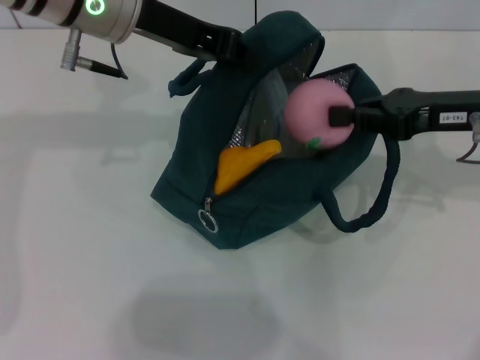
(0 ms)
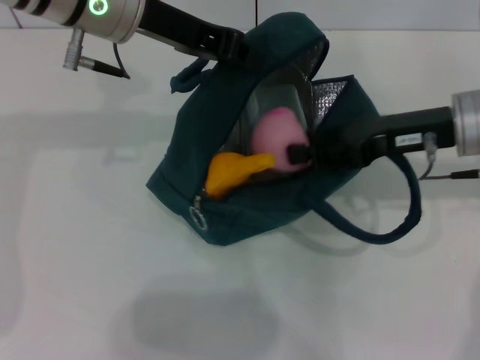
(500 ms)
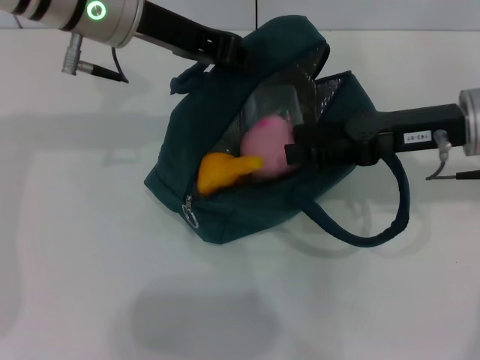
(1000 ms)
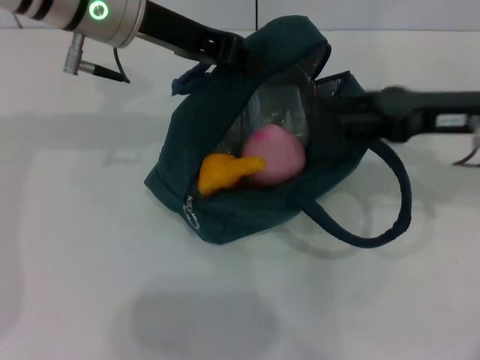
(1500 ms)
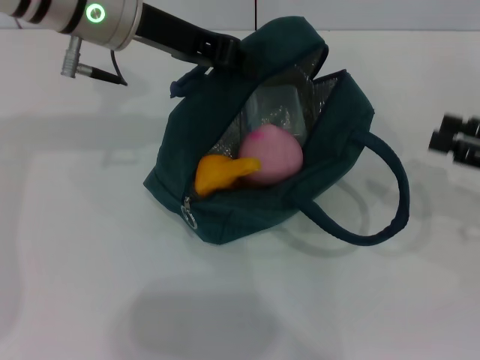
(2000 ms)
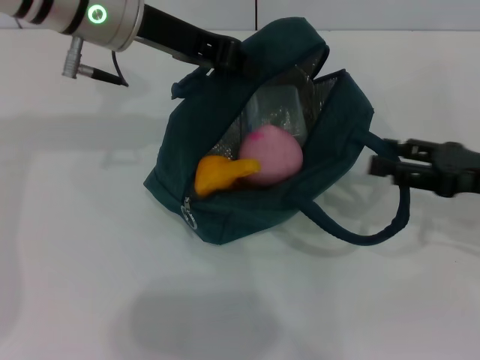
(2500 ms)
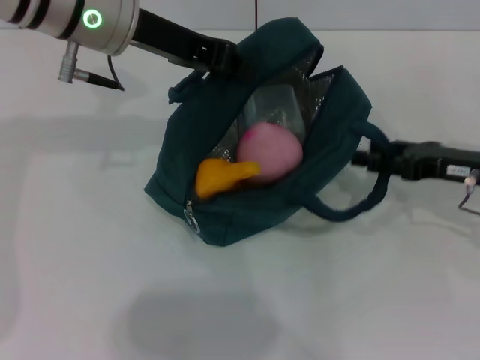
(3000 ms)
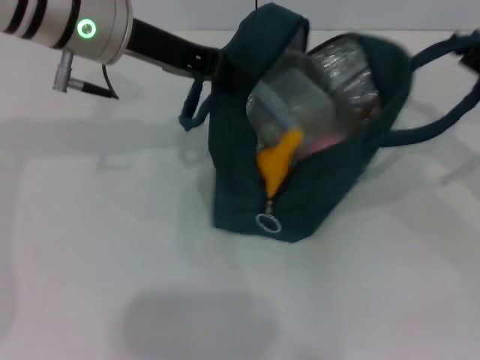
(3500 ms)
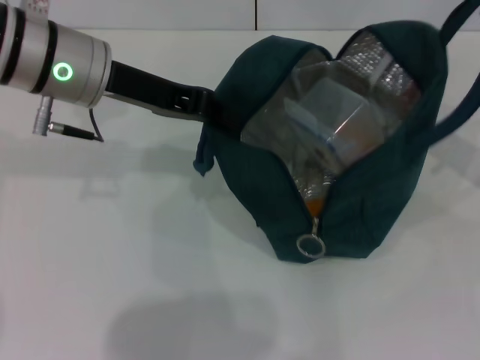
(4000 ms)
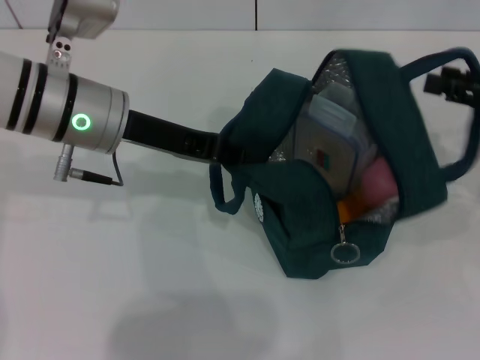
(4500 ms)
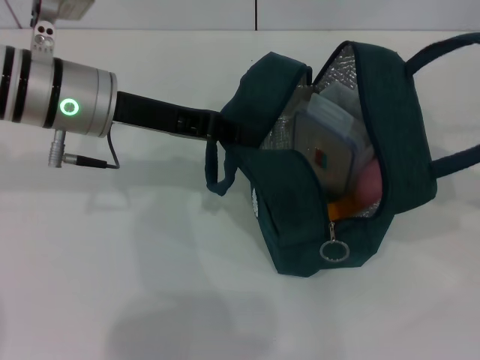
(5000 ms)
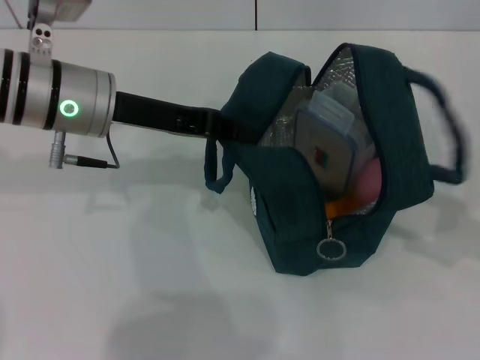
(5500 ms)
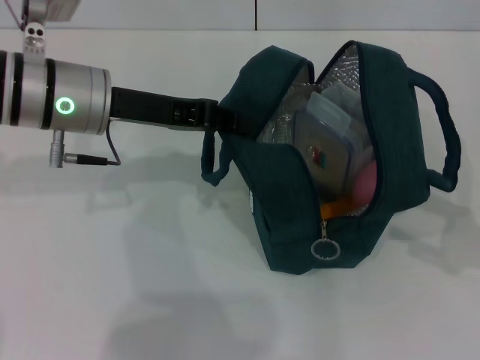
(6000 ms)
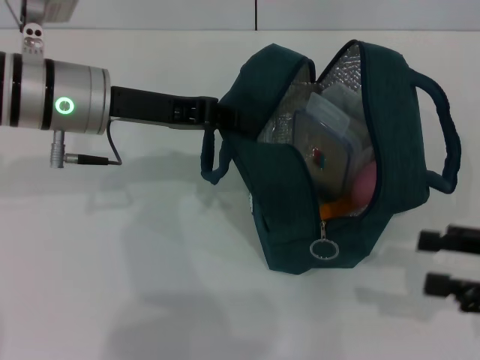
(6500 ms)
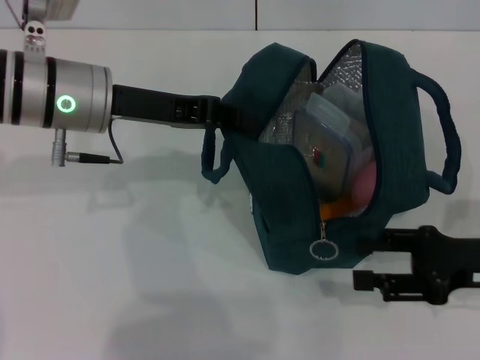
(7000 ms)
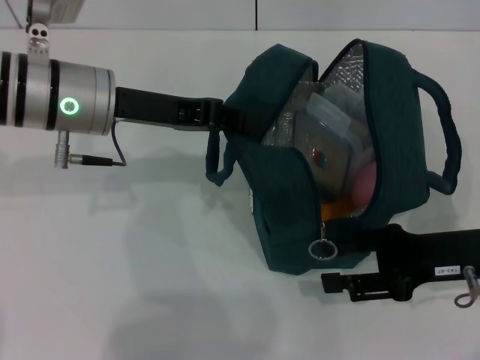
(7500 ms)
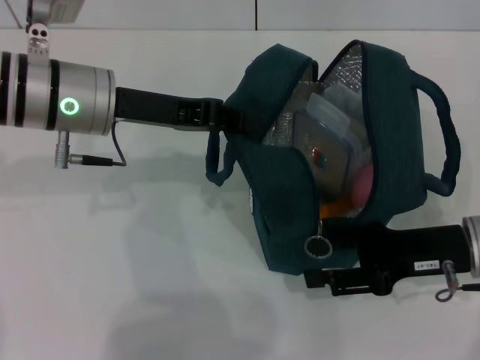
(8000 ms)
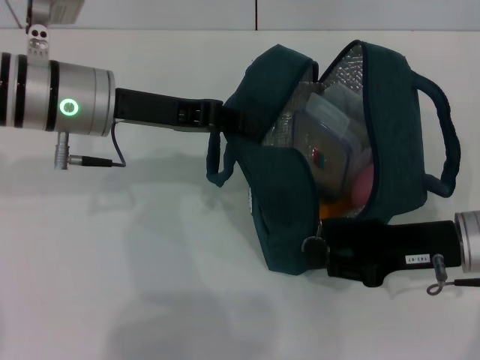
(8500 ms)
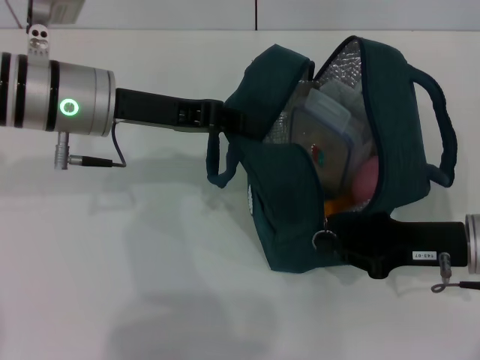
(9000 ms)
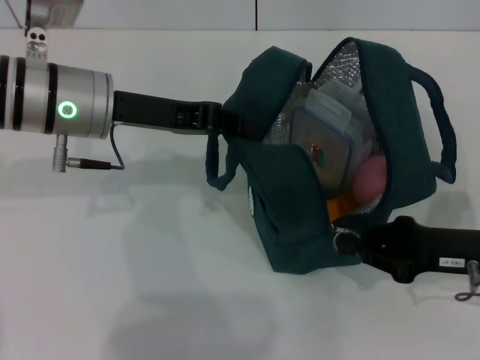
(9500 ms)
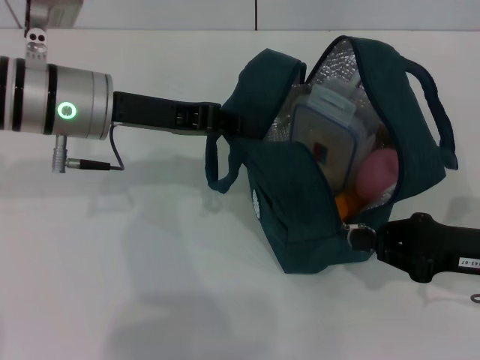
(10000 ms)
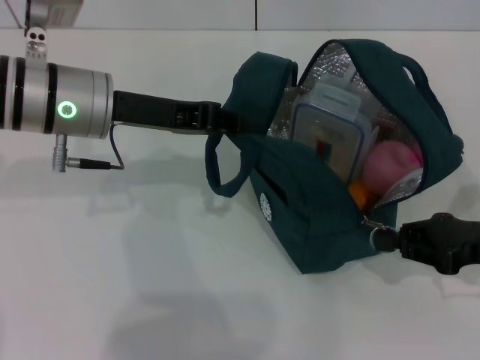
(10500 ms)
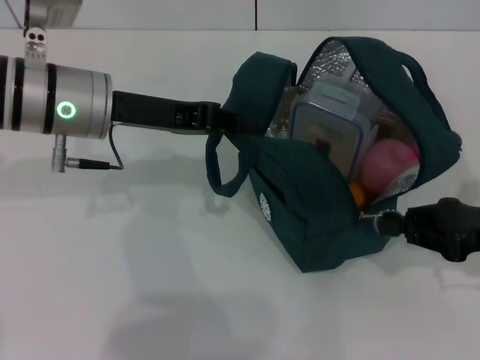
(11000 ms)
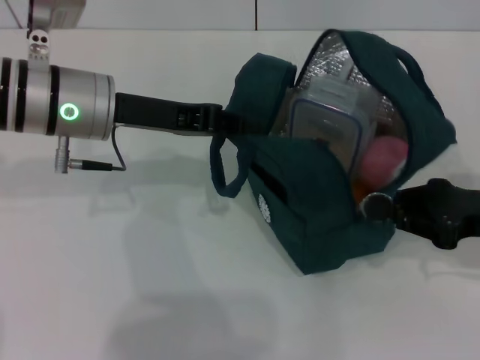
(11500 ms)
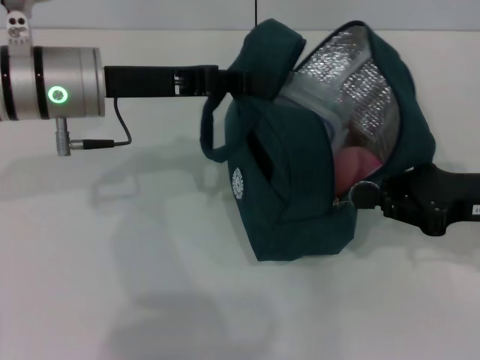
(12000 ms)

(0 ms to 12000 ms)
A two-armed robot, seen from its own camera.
Step, 2000 ms - 5000 ms: Hold the lunch bag with your right hand.
0 ms - 2000 ms: The right gripper travels to the right and backward by some 10 cm, and opens its fingers.
2000 ms - 4000 ms: The left gripper ends up some 5 cm from where it was; the right gripper travels upward by about 5 cm.
4000 ms - 6000 ms: The right gripper shifts roughly 10 cm backward.
6000 ms - 8000 ms: The right gripper is displaced to the left, forward and downward by some 15 cm.
8000 ms - 10000 ms: The right gripper closes.
10000 ms - 12000 ms: The right gripper moves upward, approximately 5 cm.

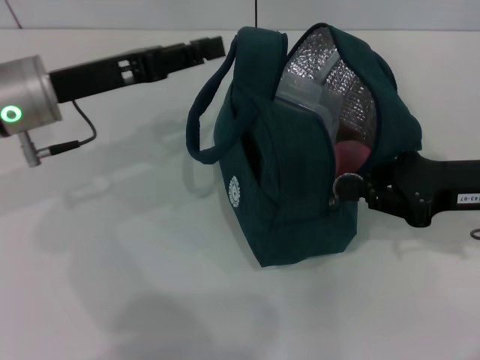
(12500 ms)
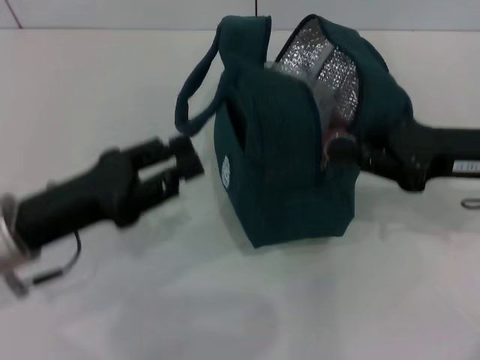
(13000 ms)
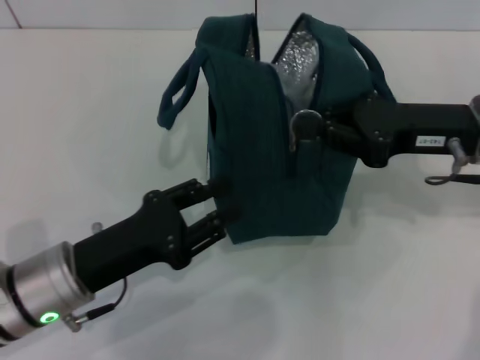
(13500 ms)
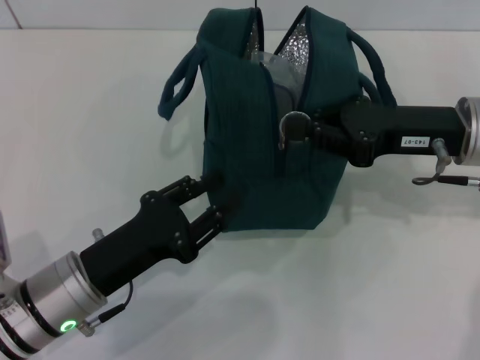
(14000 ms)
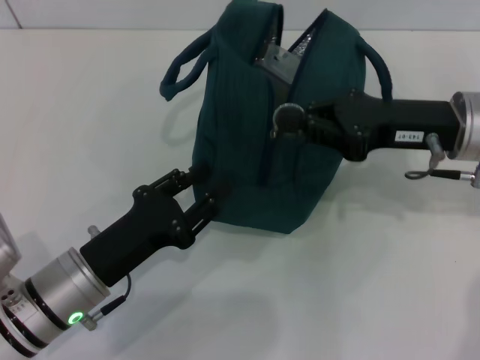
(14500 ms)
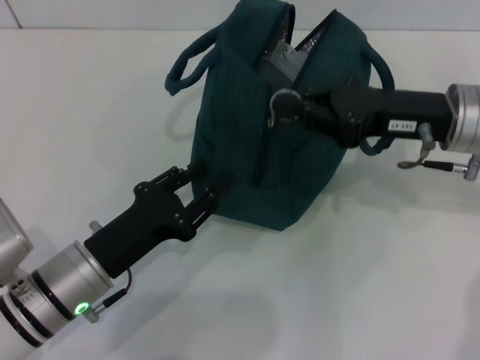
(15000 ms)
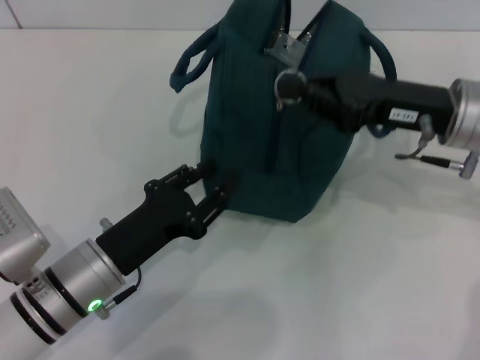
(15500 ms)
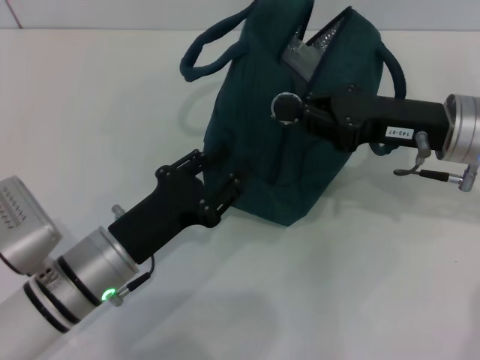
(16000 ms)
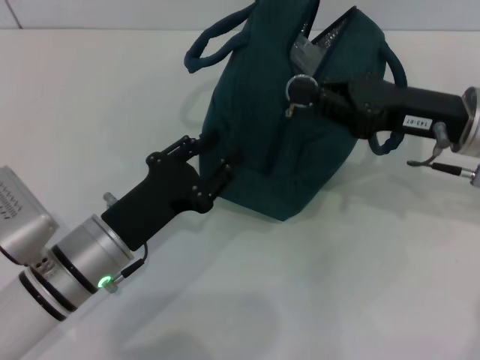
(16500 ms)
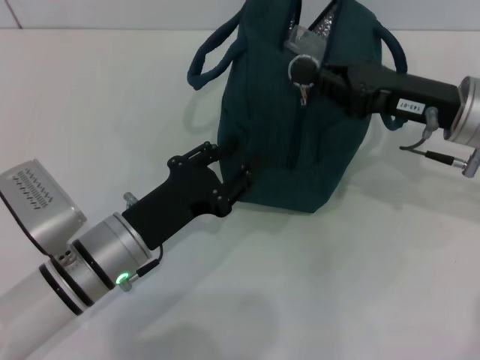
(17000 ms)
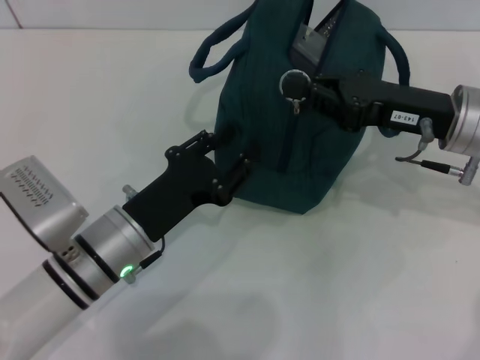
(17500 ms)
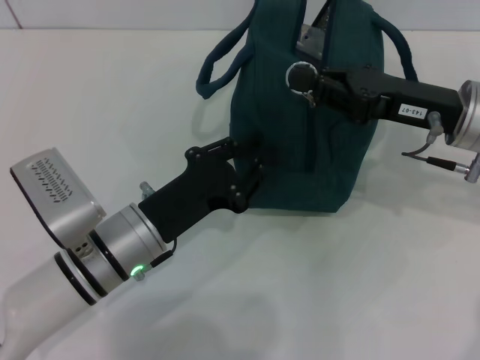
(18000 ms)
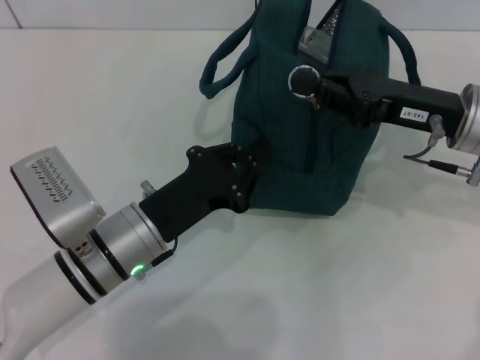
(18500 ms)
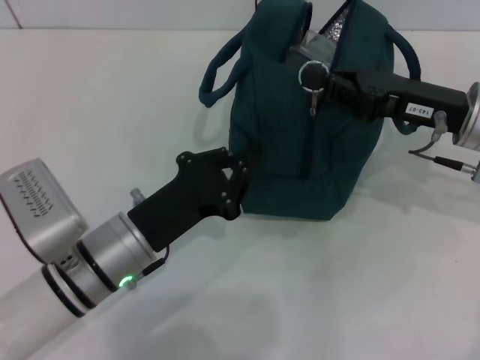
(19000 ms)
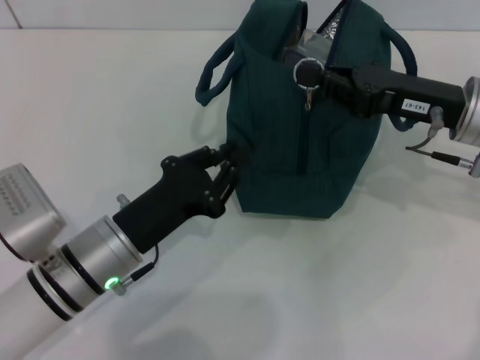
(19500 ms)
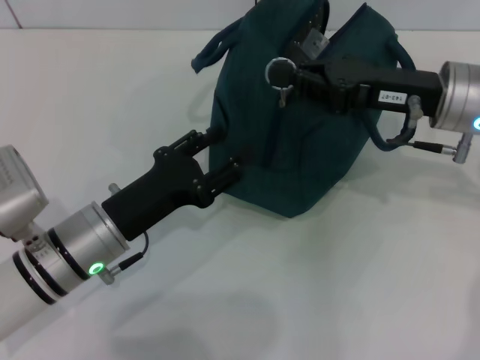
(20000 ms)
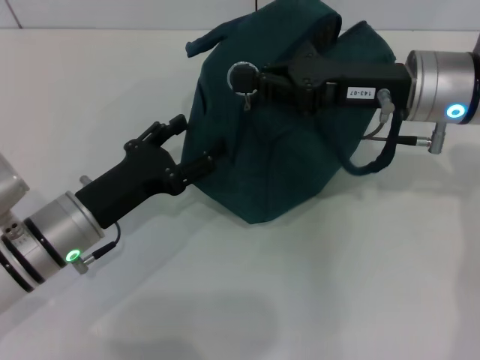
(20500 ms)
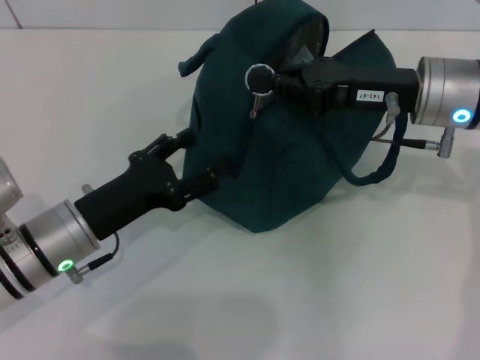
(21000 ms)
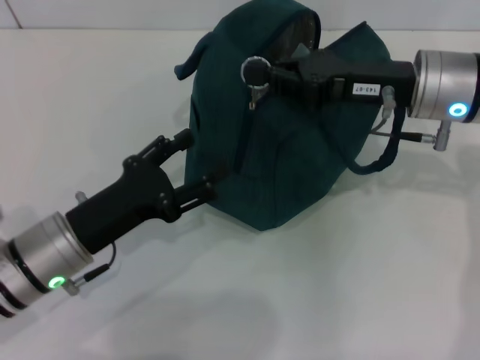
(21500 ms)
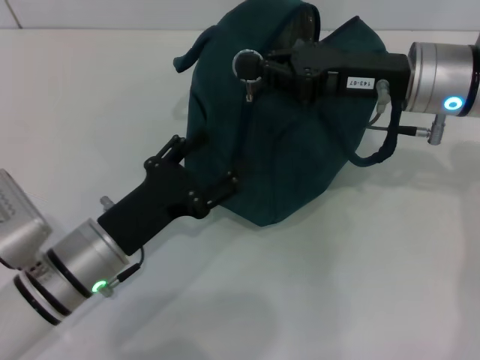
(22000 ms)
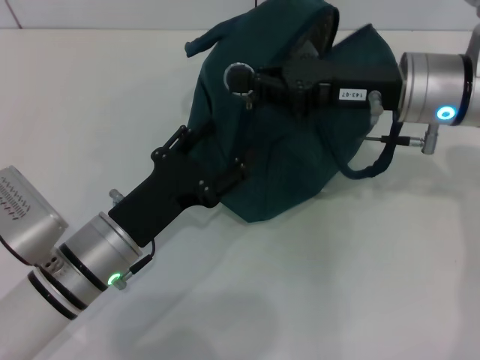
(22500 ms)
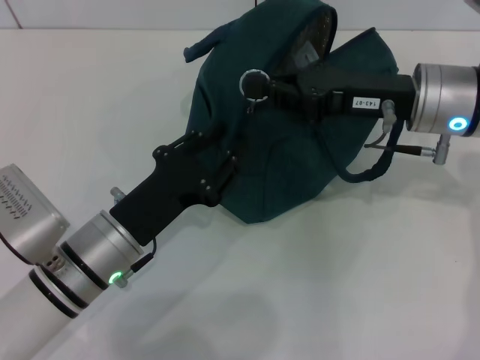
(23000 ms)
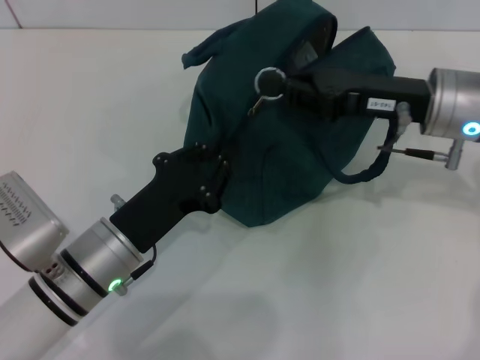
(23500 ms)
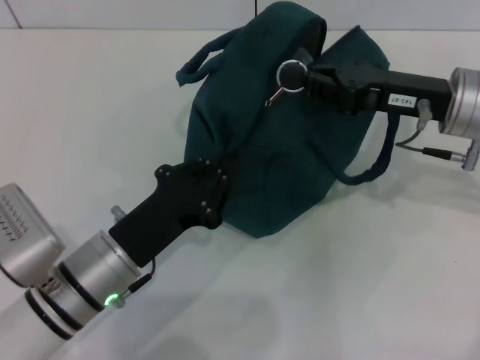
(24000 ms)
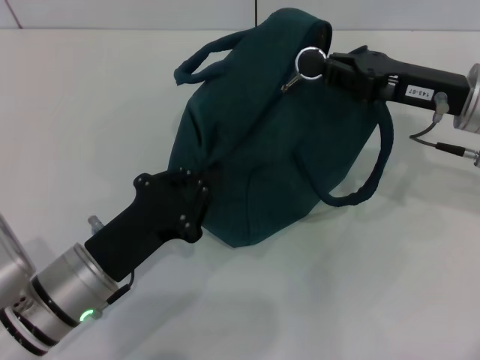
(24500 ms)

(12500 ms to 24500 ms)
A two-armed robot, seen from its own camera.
12500 ms - 14500 ms: The left gripper moves backward and downward, approximately 20 cm. Meanwhile the right gripper is displaced to the left by approximately 5 cm.
16500 ms - 18500 ms: The left gripper closes.
18500 ms - 20500 ms: The left gripper moves to the left, some 5 cm, and opens up, while the right gripper changes place by approximately 5 cm.
20500 ms - 22500 ms: The grippers make only small movements.
22500 ms - 24500 ms: The left gripper closes, while the right gripper travels to the right by some 5 cm.

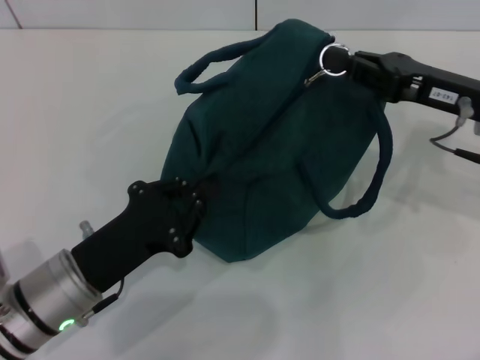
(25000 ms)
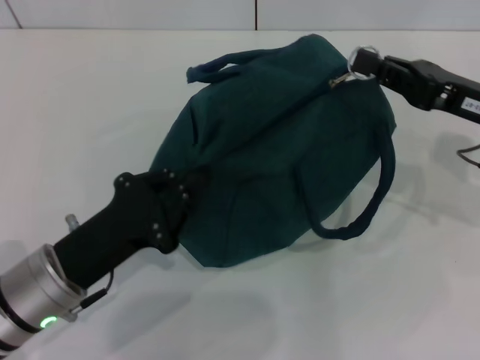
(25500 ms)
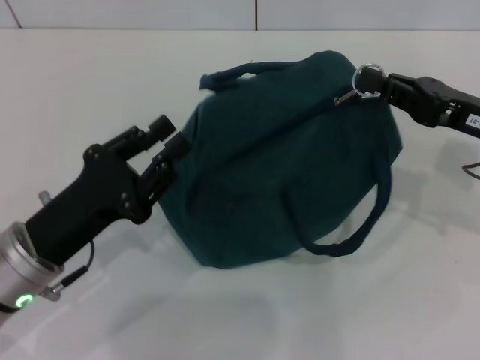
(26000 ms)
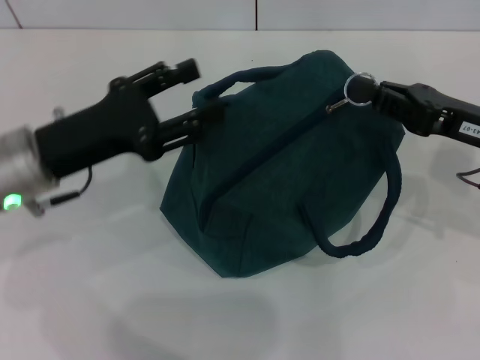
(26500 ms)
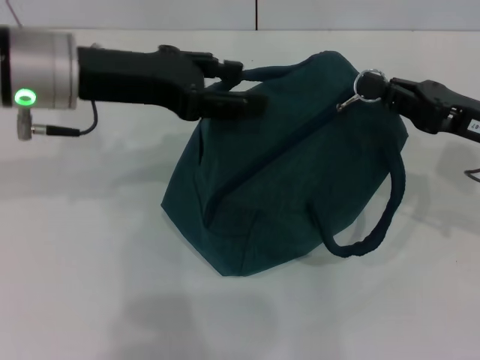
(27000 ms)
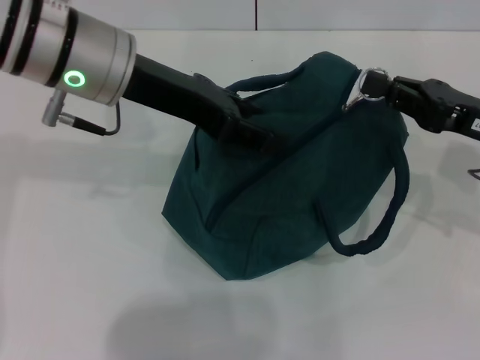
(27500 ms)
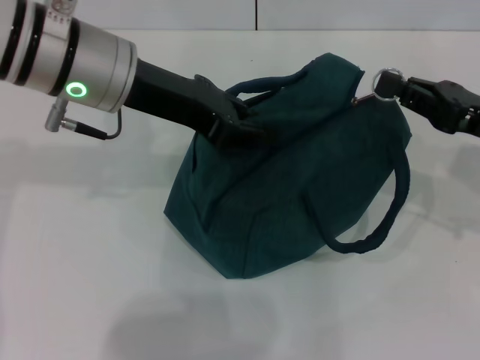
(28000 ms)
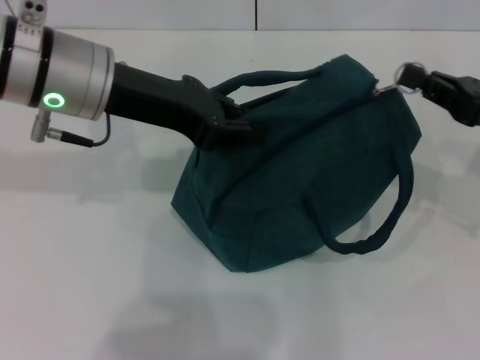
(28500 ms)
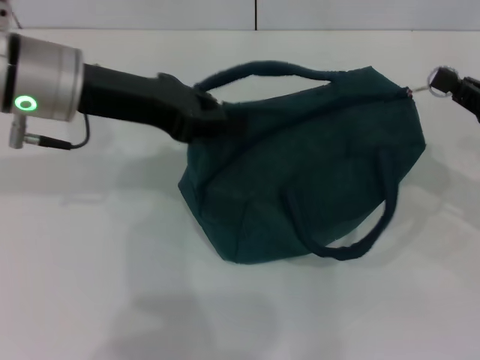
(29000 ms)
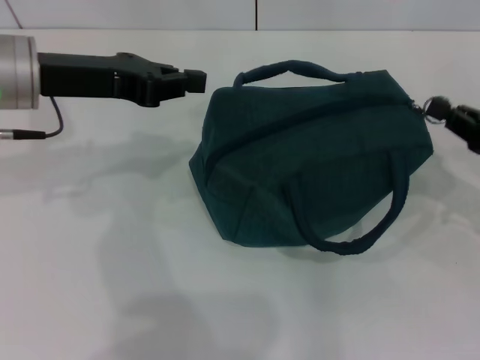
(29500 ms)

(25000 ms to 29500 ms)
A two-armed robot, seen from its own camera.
25000 ms - 27000 ms: The left gripper is displaced upward and forward by approximately 20 cm, and opens.
27000 ms - 29500 ms: The left gripper closes, while the right gripper shifts some 5 cm to the right.
